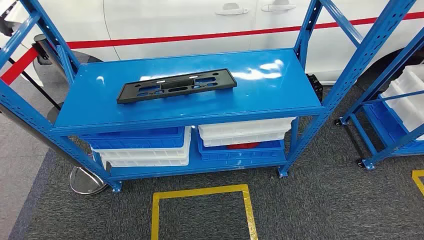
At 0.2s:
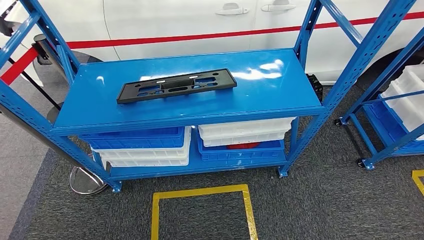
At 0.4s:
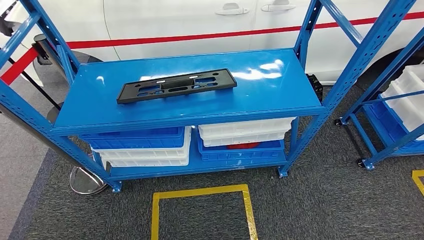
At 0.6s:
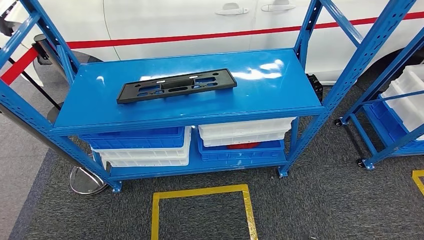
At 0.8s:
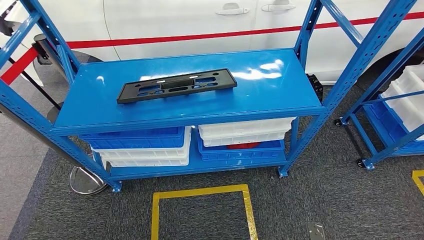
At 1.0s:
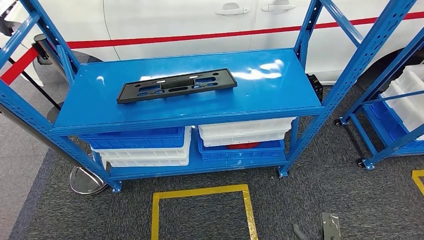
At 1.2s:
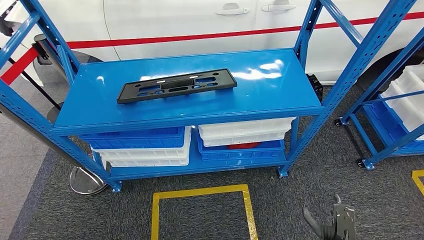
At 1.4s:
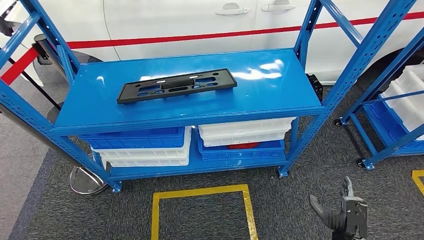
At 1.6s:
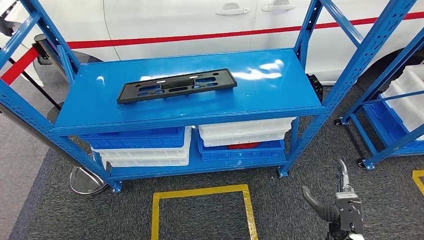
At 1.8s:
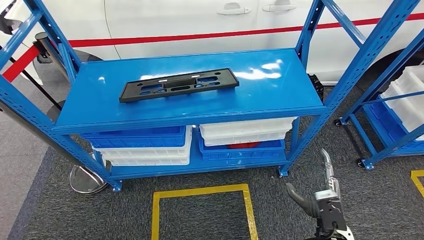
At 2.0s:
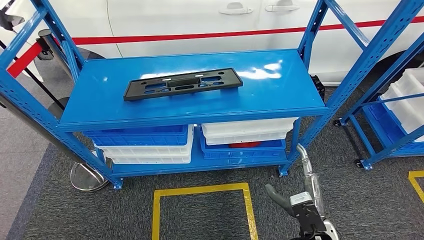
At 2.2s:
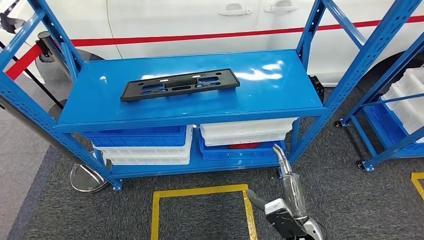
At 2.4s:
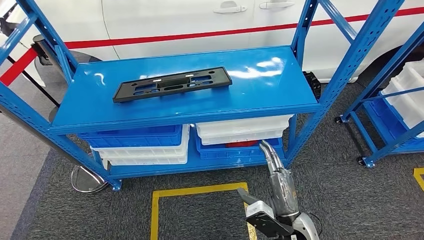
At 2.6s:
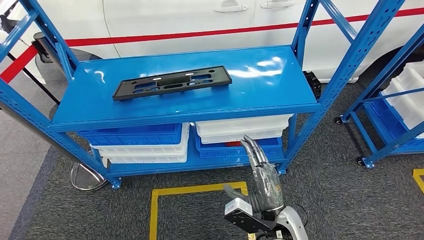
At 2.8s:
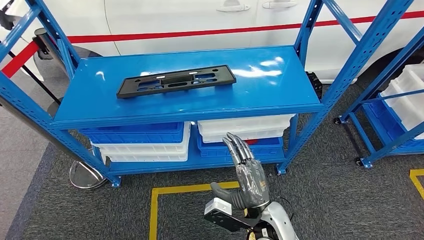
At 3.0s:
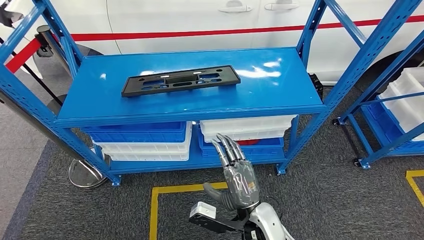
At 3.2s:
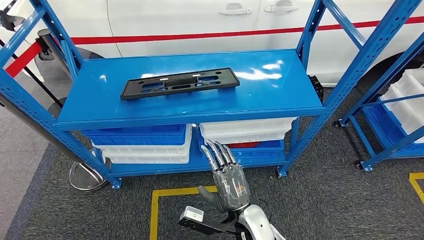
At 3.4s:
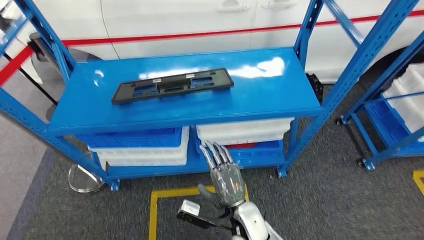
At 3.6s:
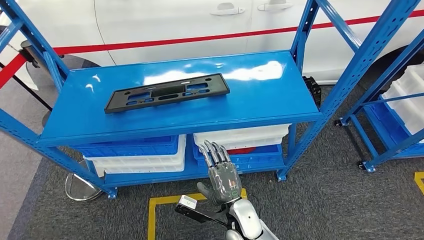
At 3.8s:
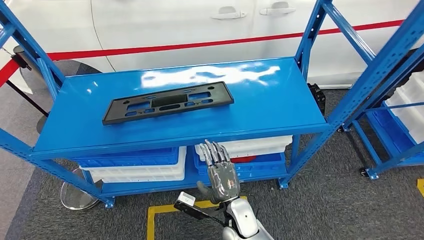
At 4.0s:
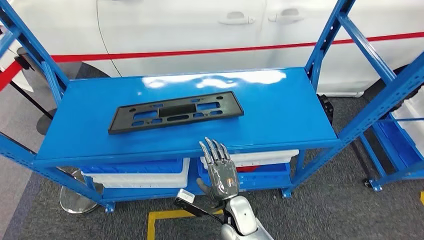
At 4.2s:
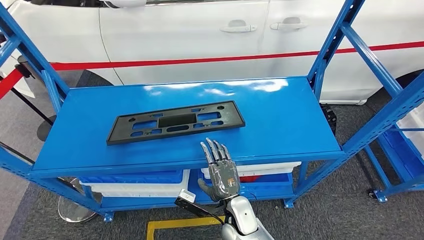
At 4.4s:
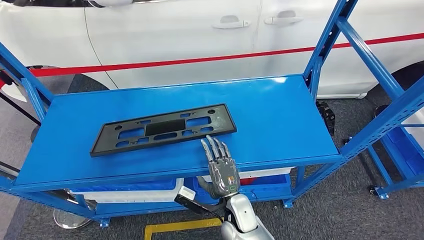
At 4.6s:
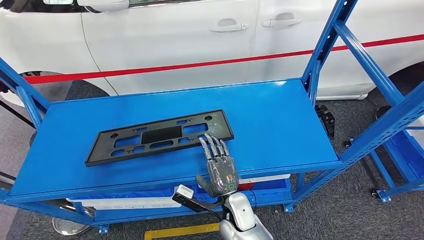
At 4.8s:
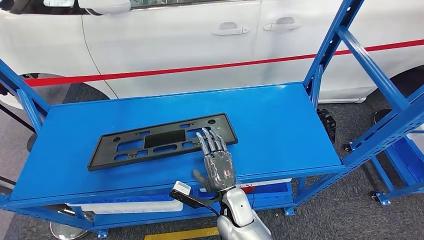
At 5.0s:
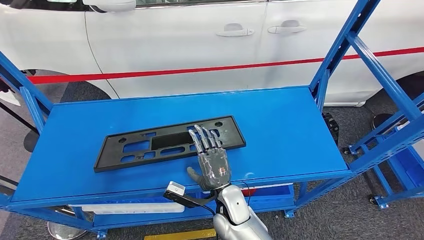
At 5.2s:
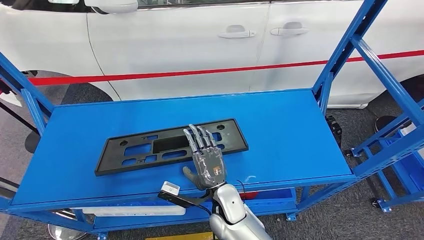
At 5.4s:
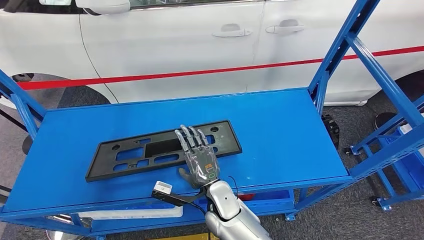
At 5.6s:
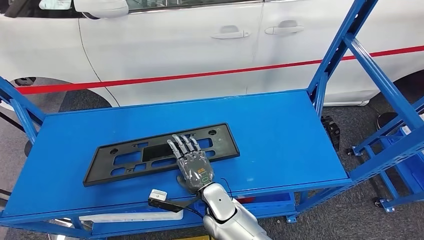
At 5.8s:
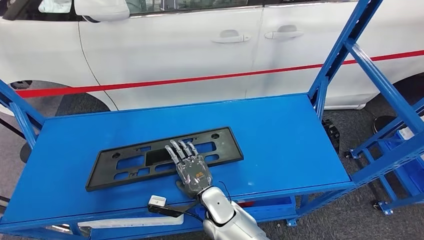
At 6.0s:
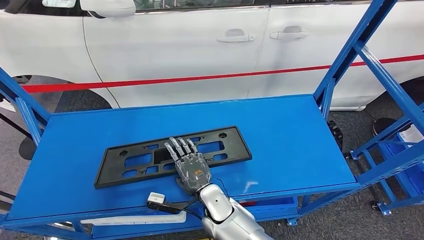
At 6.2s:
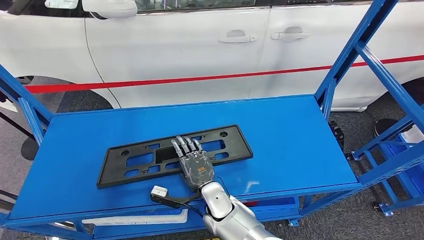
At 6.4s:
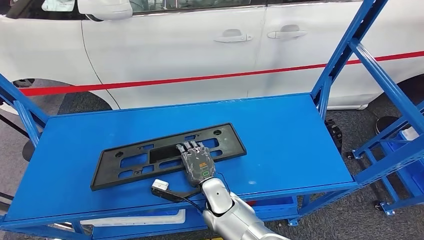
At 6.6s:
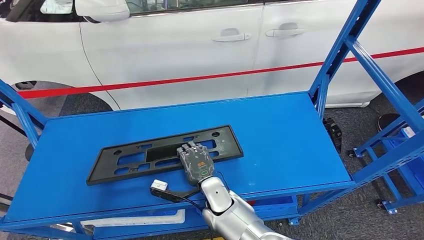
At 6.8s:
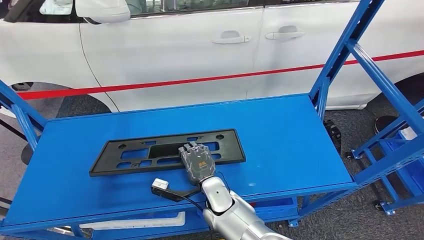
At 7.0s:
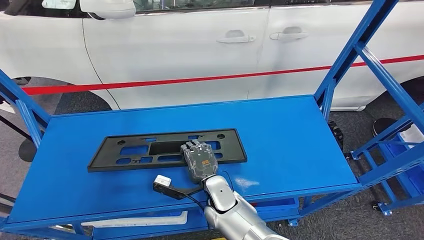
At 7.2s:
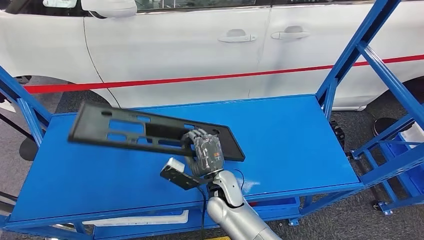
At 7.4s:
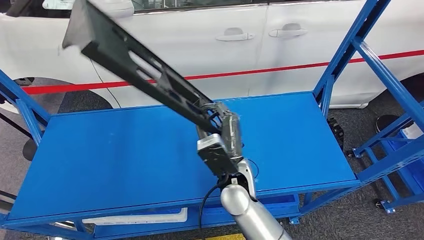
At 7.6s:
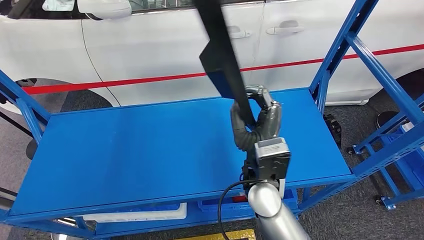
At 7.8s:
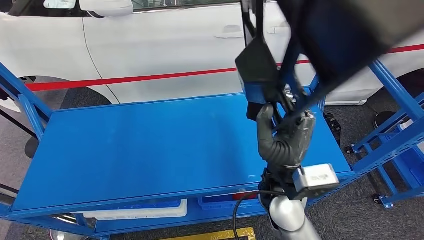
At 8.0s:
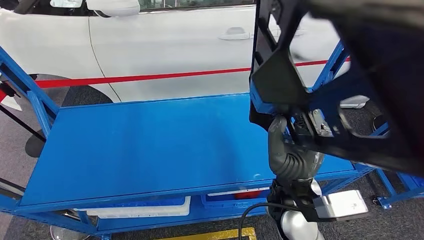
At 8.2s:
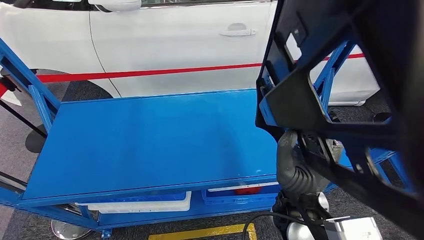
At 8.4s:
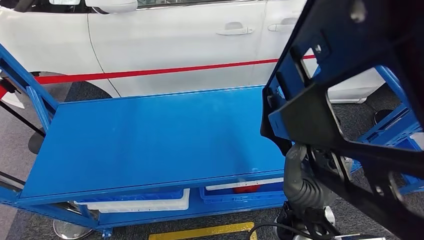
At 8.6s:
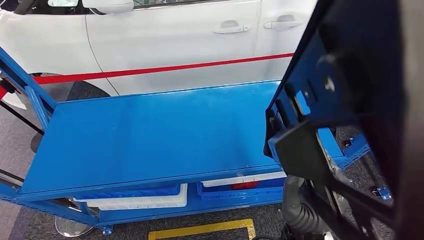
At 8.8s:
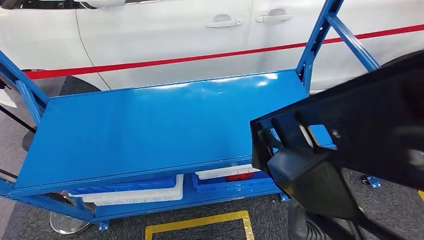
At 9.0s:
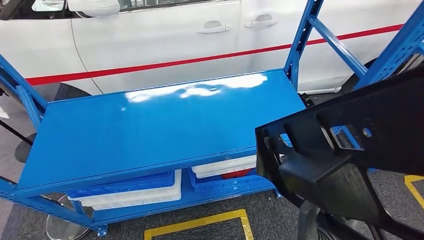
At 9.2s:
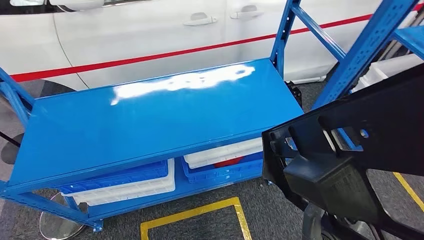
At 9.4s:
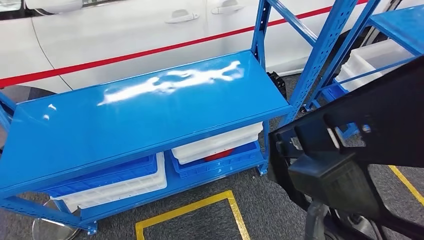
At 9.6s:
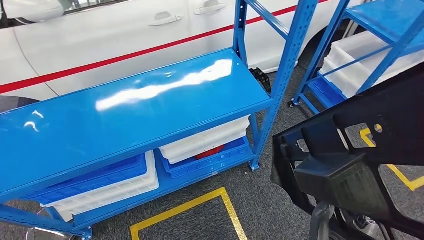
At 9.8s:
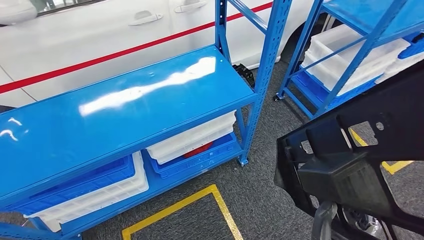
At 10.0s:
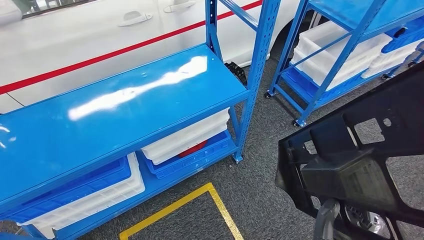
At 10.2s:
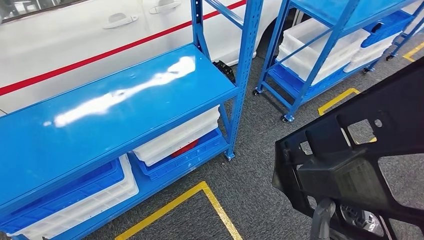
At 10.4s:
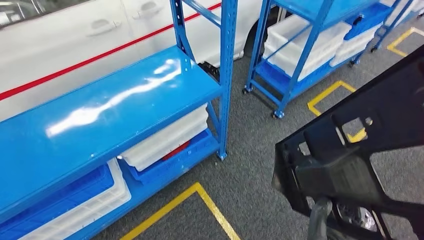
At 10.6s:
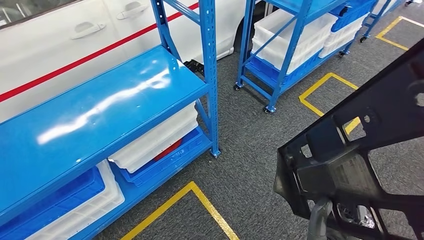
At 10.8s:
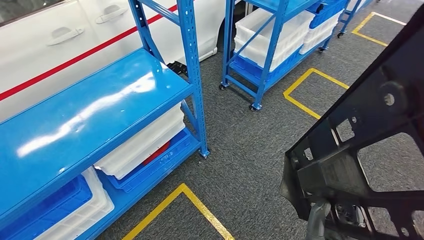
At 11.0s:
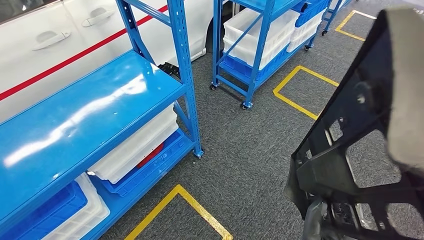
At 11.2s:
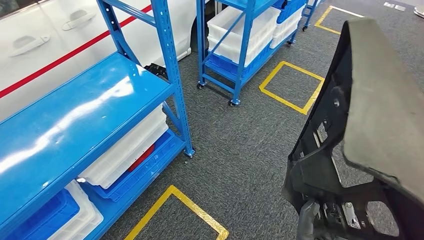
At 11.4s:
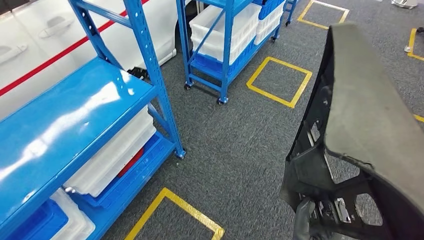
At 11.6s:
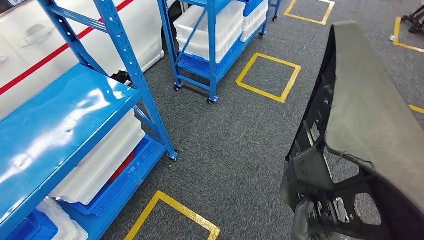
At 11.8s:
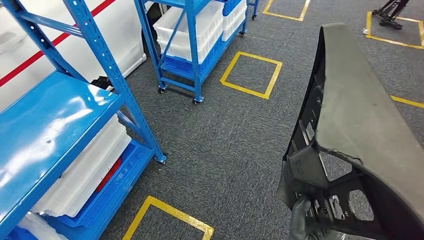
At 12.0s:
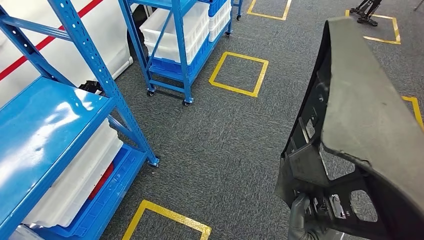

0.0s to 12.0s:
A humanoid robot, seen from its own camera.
Step, 0.0s to 9.0s: Pick up the large material from the shelf.

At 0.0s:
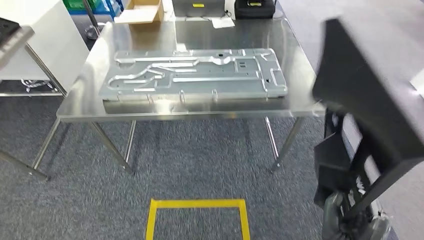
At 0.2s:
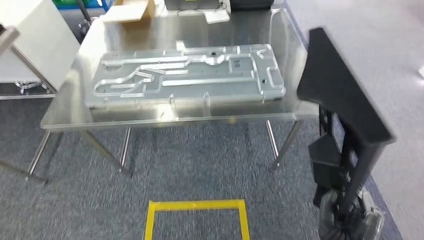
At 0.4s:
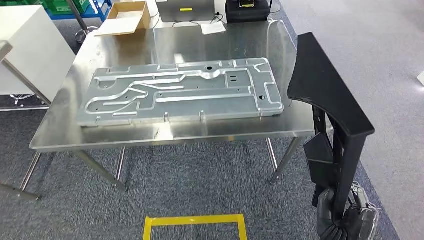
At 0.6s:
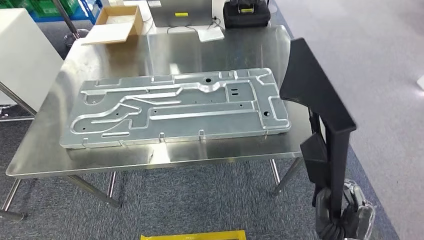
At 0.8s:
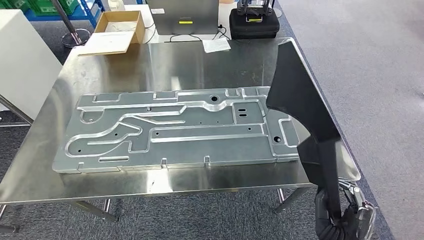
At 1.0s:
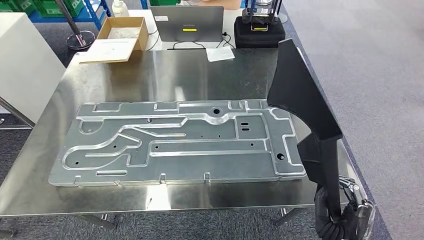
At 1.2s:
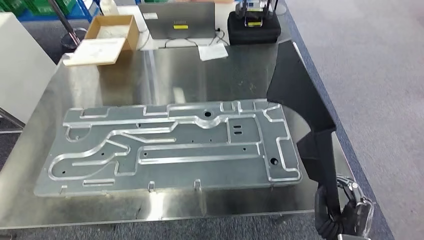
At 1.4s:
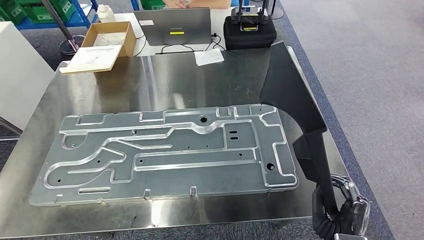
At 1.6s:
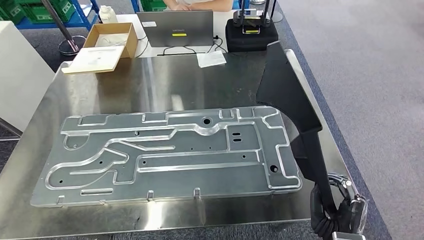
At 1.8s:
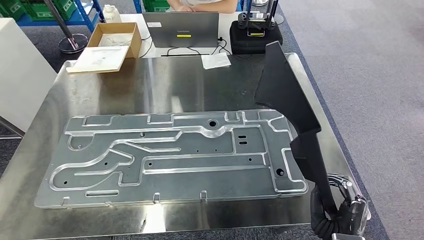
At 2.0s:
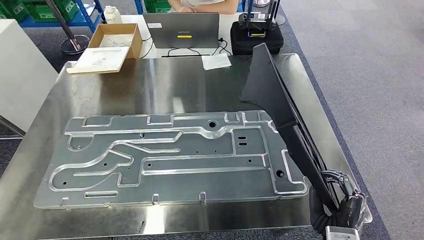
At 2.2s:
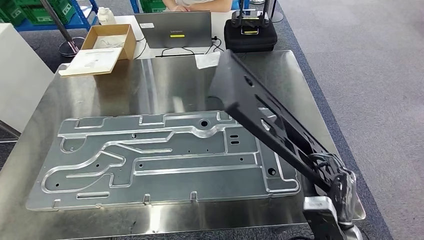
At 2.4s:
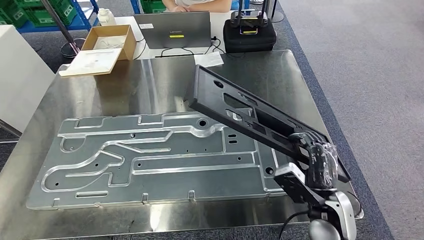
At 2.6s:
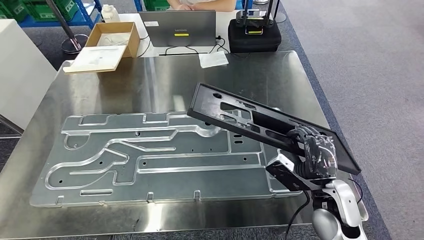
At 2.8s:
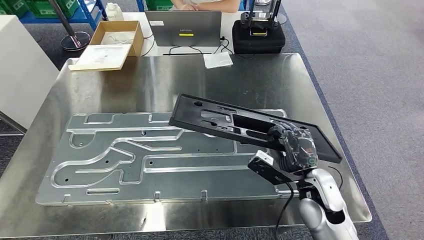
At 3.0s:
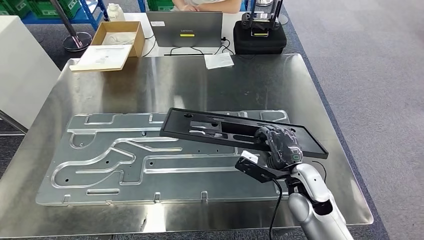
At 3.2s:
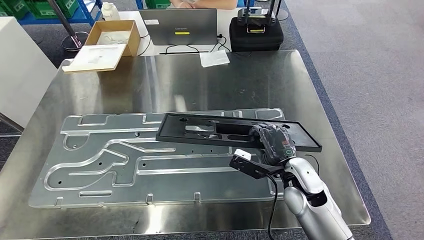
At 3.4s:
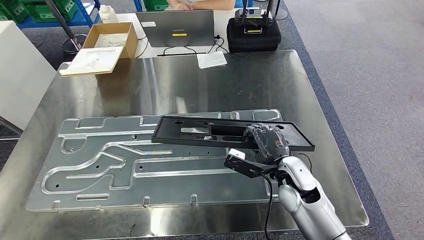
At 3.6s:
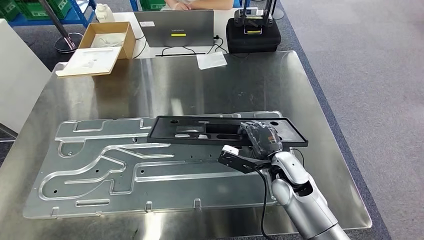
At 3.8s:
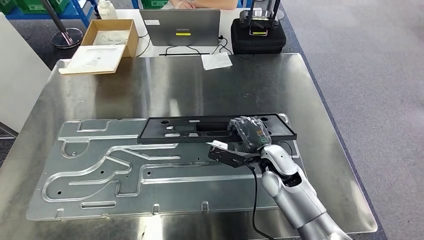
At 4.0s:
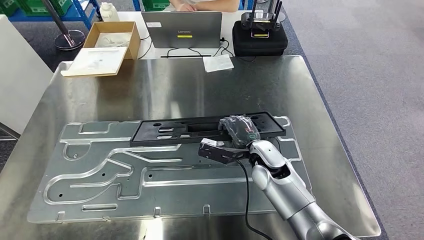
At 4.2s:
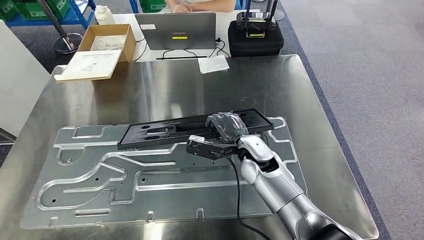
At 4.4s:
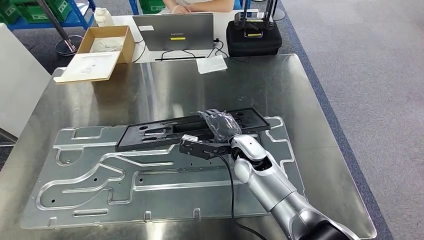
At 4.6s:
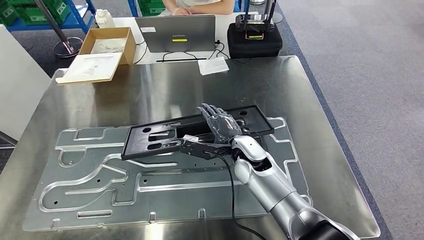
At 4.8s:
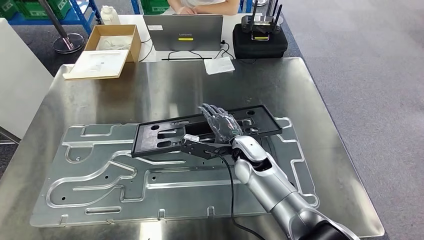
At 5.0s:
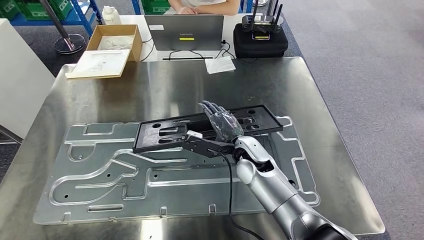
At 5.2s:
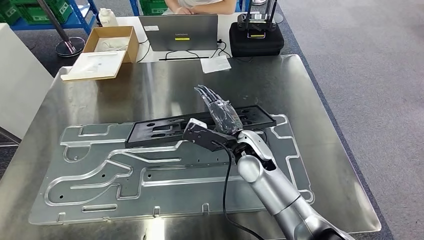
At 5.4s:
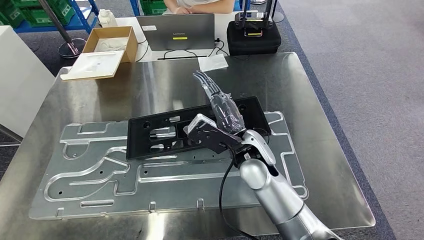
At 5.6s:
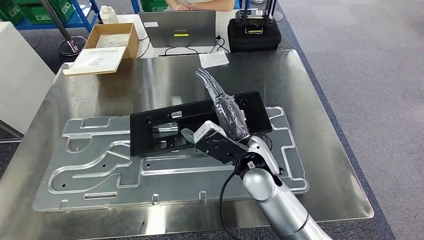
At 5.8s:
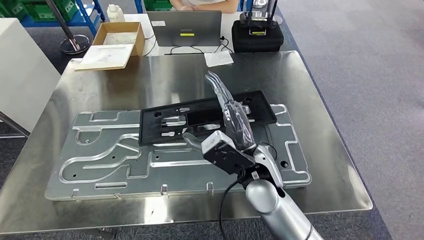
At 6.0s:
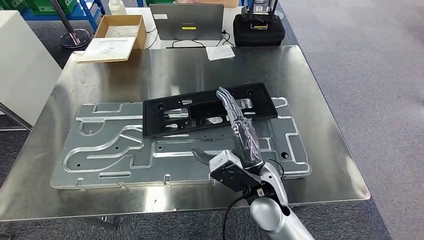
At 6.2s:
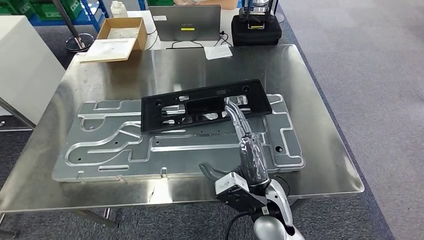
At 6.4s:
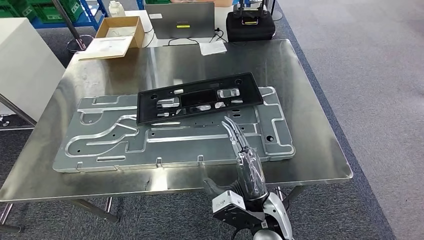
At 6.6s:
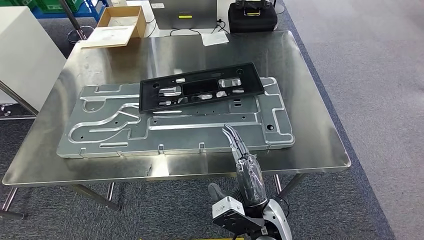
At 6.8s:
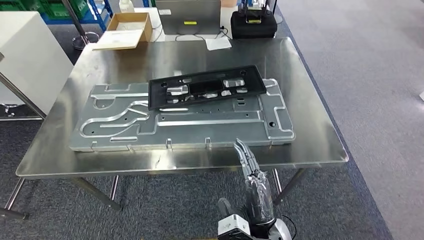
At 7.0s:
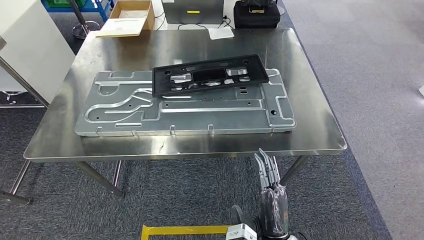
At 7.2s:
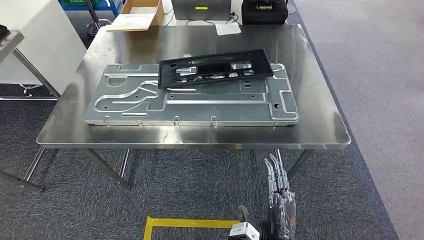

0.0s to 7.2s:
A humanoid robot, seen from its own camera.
Step, 0.0s to 2.2s: Move the large material to the workbench.
Step, 2.4s to 6.6s: Insert the large material into the corresponding slot on the workbench.
